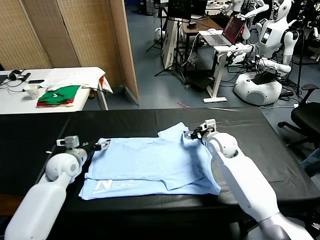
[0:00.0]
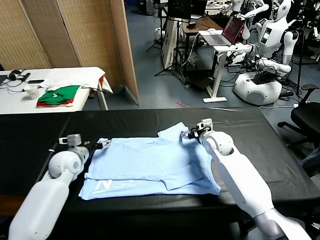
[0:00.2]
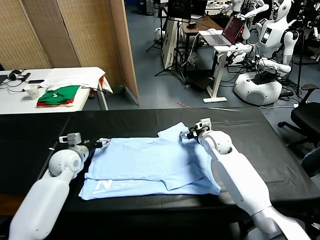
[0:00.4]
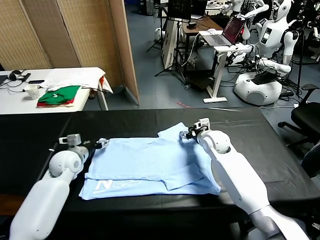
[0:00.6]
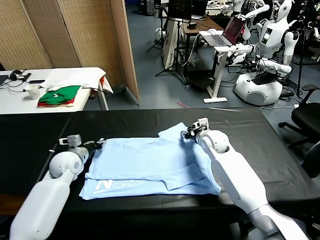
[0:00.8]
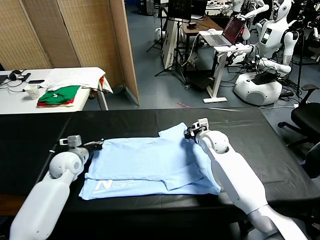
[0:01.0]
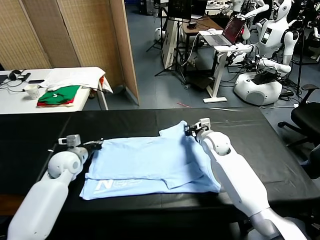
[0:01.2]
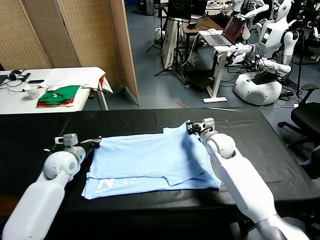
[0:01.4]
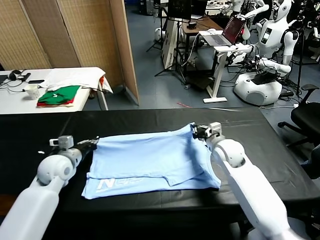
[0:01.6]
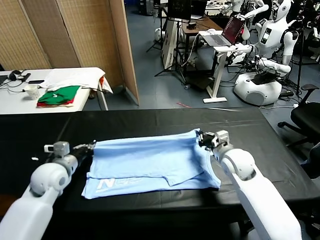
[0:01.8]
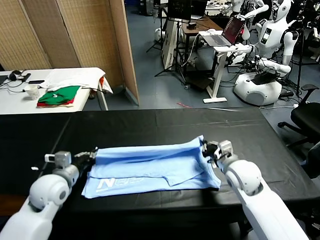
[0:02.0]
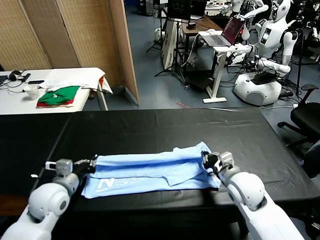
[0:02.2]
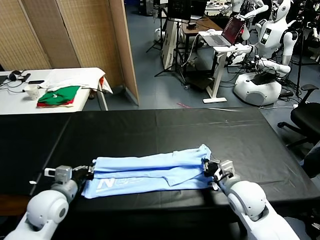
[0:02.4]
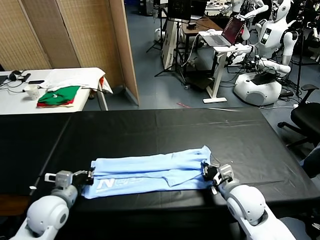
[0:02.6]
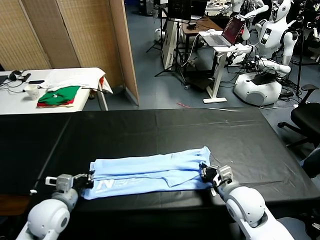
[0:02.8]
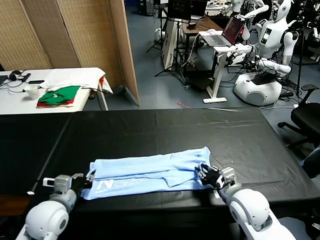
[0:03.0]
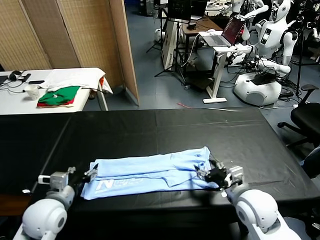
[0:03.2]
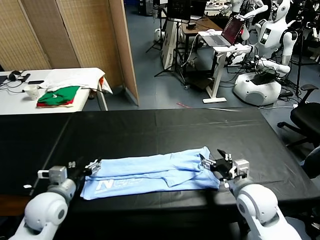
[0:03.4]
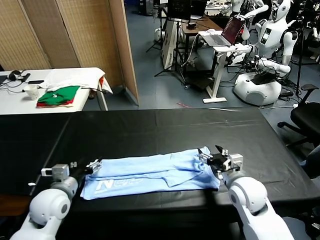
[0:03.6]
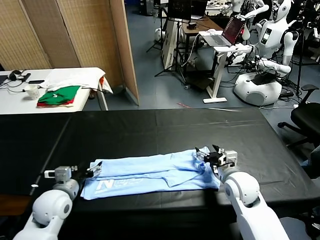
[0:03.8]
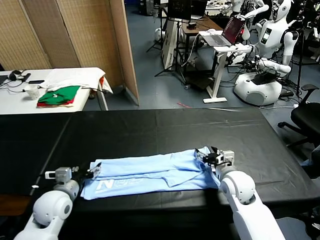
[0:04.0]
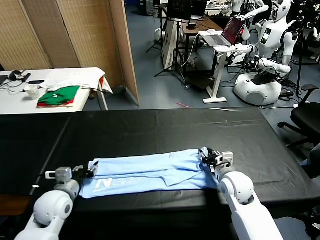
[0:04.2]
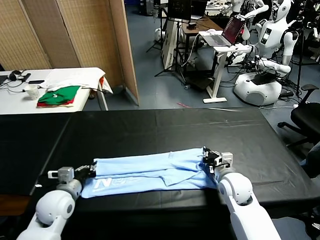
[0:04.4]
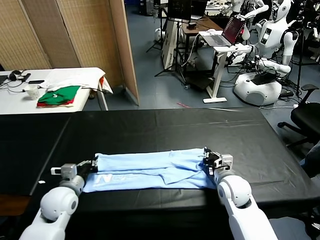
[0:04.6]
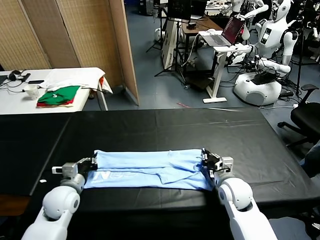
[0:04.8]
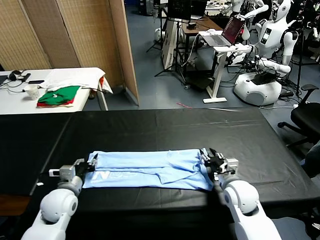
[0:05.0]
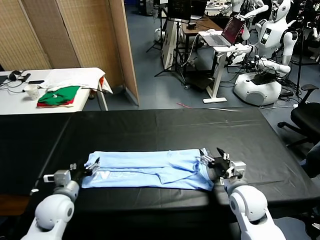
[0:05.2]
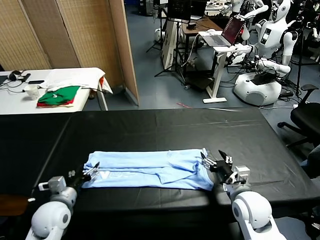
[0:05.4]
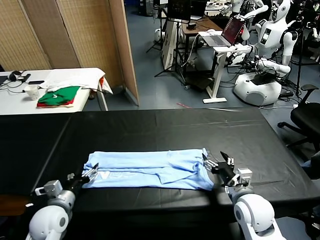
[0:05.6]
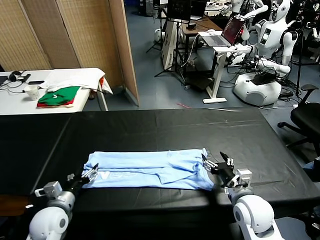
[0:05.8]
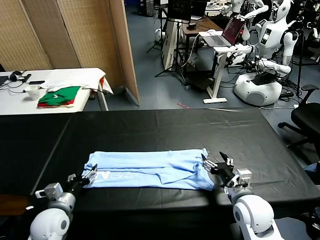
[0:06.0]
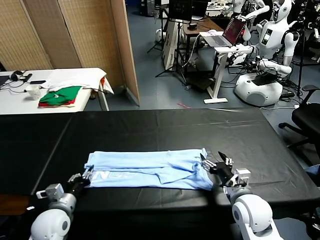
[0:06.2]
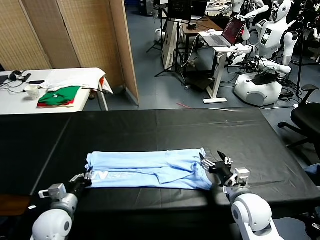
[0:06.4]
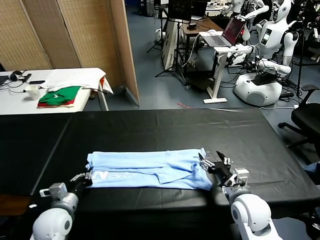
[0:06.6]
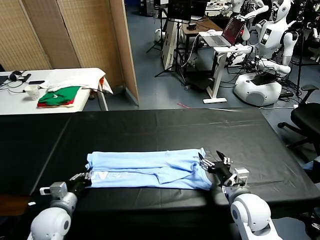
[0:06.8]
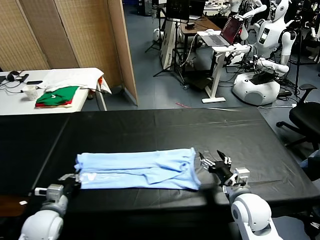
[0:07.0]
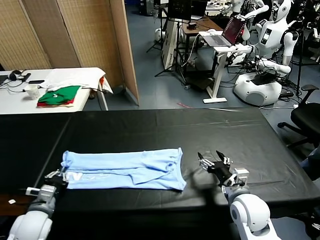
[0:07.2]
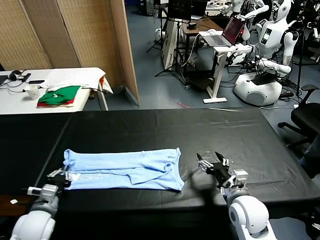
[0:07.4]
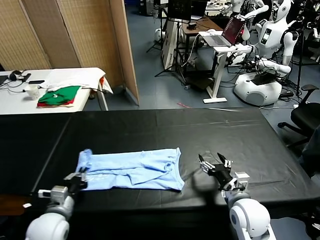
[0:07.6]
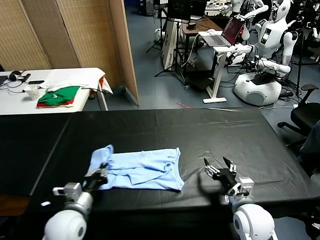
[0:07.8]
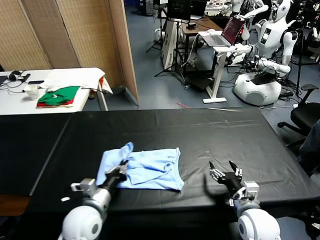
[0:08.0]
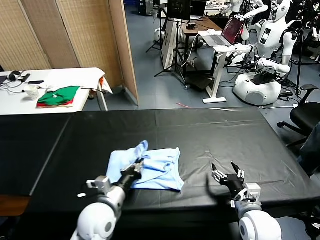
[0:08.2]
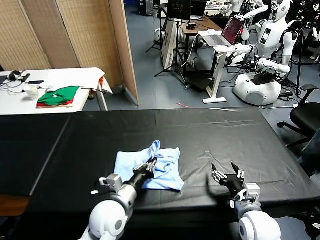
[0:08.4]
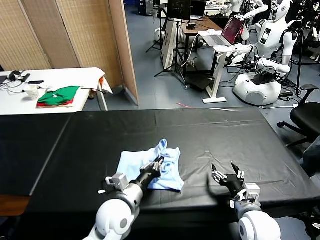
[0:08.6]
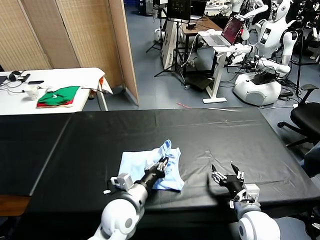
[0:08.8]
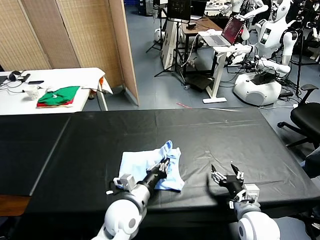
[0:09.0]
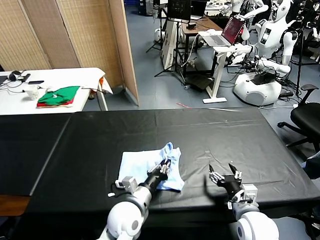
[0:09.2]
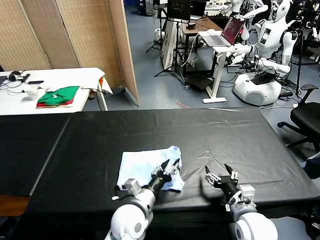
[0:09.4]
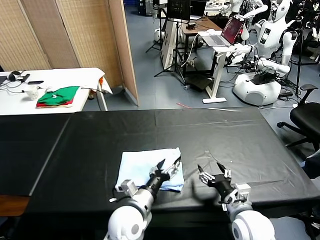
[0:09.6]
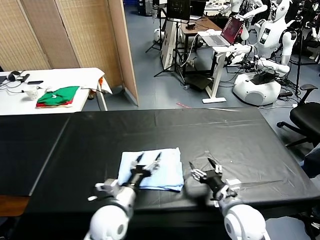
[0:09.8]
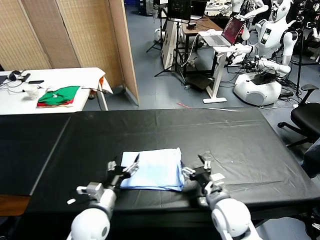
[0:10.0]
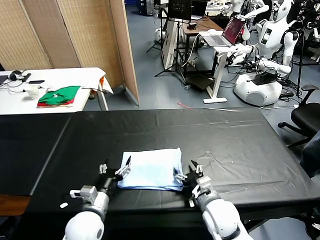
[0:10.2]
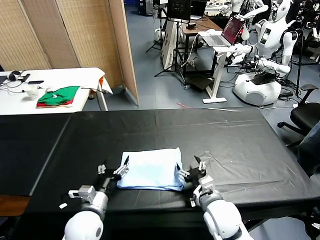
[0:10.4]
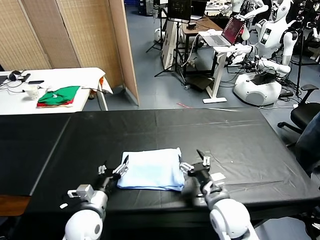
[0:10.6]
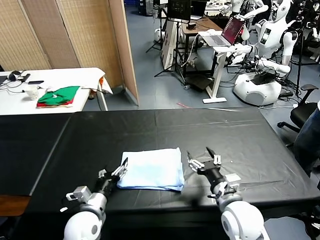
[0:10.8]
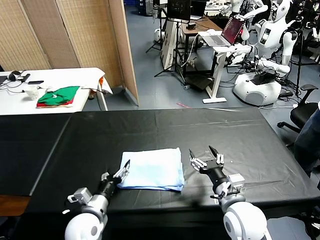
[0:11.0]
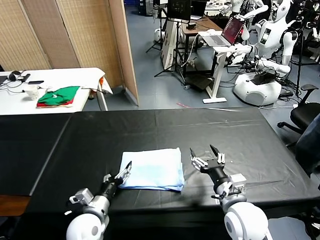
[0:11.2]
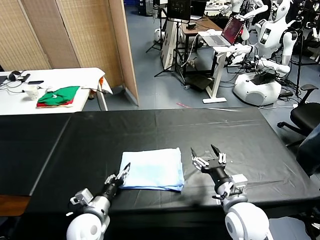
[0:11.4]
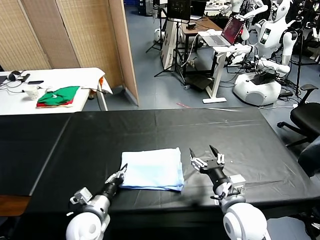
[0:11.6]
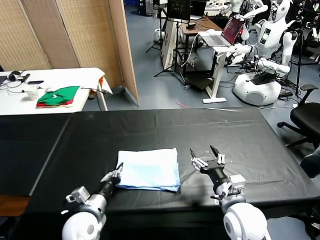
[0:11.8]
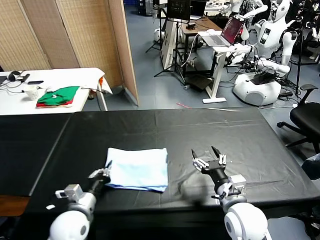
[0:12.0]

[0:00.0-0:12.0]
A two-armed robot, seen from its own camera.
Task of the whole recording: fold and organize the clothes.
Step, 0:01.4 to 0:03.2: use both grippers to drag the upper edge of the fabric backward and fold it over the lower edge.
Step, 0:03.4 to 0:06.6: use the left gripper to clamp the left edge of the fabric.
Step, 0:06.8 to 0:09.6: use the left gripper to drag the left edge of the fabric to the left and folds it over the right edge.
0:00.0 to 0:01.6: The right gripper moves backward, approximately 10 cm, and closes its fingers; the left gripper closes.
0:01.6 to 0:03.0: Both grippers move backward, approximately 15 cm. The right gripper opens its fingers; the left gripper opens.
0:03.0 to 0:04.4: The right gripper shifts roughly 10 cm forward and downward, and closes, while the left gripper shifts by approximately 5 cm, and closes its fingers.
0:04.4 to 0:06.0: The right gripper moves backward, roughly 10 cm, and opens up; the left gripper moves about 5 cm, and opens its fingers.
0:06.0 to 0:07.6: The left gripper closes up.
0:07.6 to 0:09.0: The left gripper shifts roughly 20 cm to the right.
0:09.0 to 0:10.4: Both grippers move to the left, roughly 10 cm. The left gripper opens.
0:10.4 to 0:12.0: The right gripper shifts by roughly 5 cm. The left gripper closes its fingers.

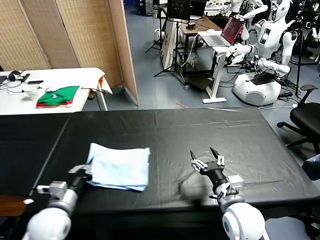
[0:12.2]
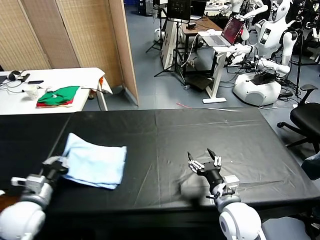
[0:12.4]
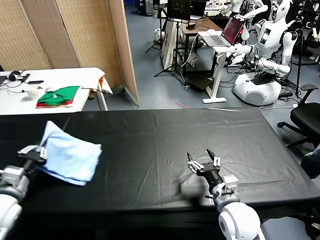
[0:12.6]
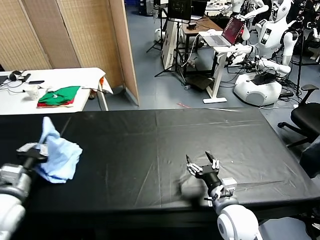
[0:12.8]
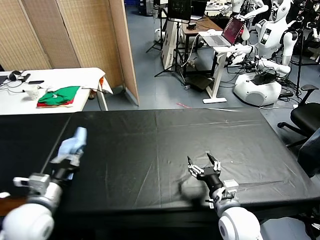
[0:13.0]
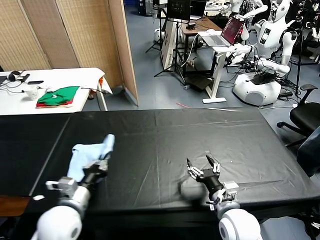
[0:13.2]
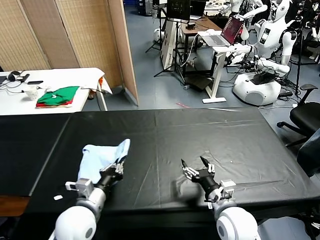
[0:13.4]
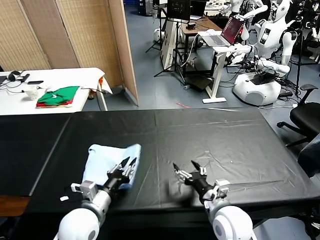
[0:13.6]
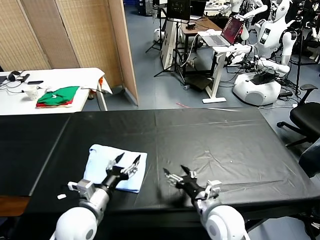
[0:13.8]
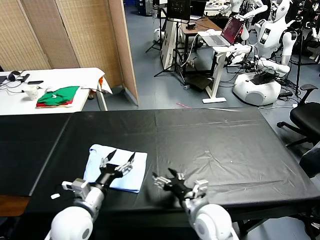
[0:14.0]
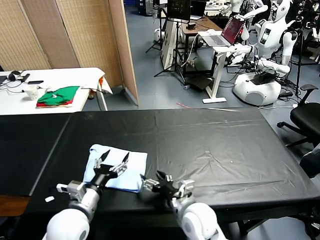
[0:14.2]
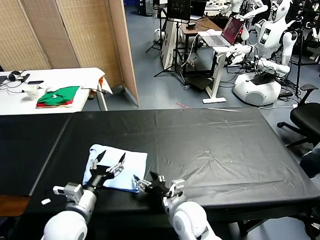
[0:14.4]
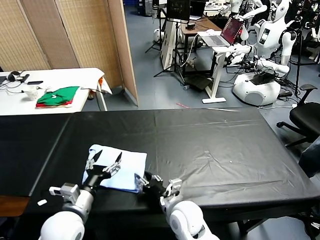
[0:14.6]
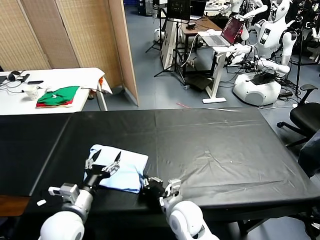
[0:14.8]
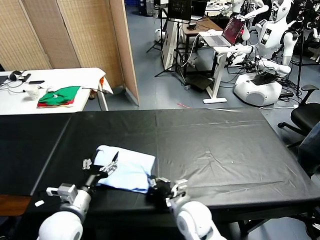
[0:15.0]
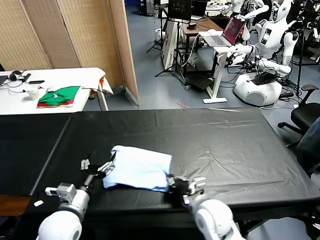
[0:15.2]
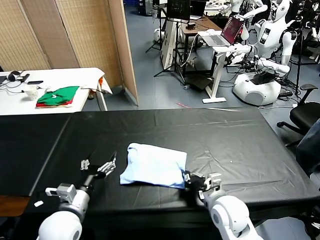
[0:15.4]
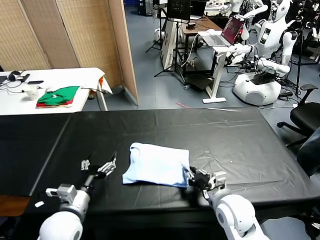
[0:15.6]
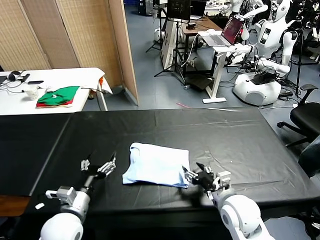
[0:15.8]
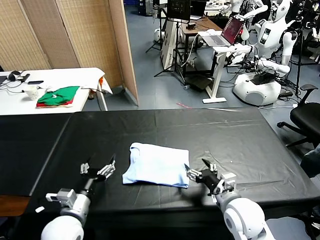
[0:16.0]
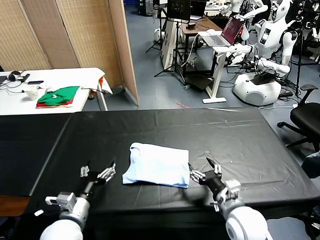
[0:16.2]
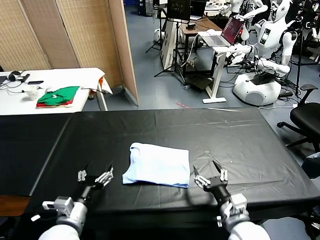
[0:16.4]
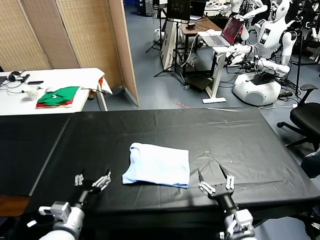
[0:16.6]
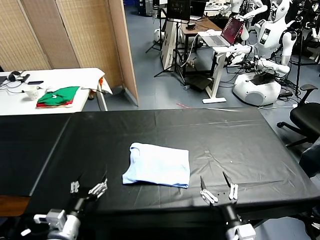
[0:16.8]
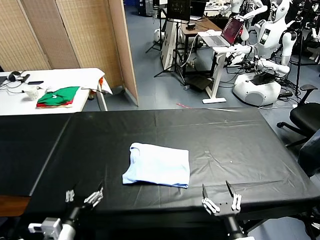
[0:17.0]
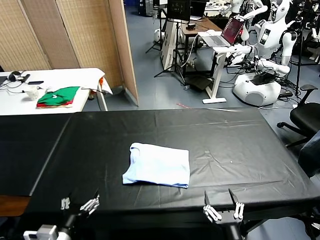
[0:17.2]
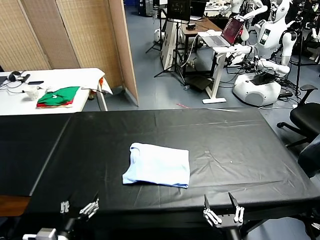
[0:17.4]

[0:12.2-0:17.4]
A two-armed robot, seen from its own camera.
Task of the whole recording: fold and organize the clothes.
Step, 0:13.8 to 0:15.8: Drag the clothes to the center of the table.
0:12.2 to 0:14.0: The left gripper goes about 10 cm to the right, and opens its fingers; the right gripper travels to the left by approximately 5 cm.
0:14.0 to 0:15.6: The right gripper shifts approximately 5 cm to the right, and closes.
0:15.6 to 0:17.4: The left gripper heads backward, covering approximately 10 cm, while the right gripper shifts roughly 20 cm backward, and opens.
